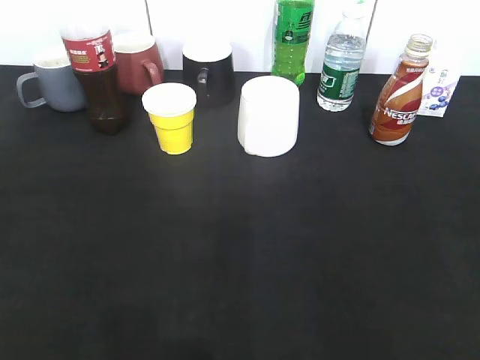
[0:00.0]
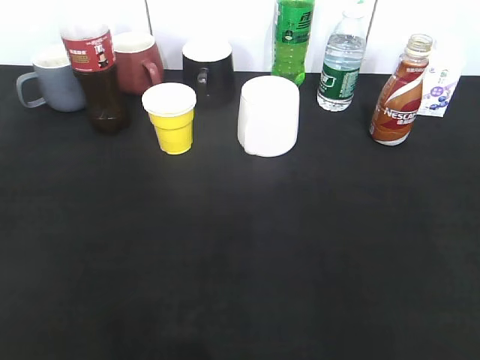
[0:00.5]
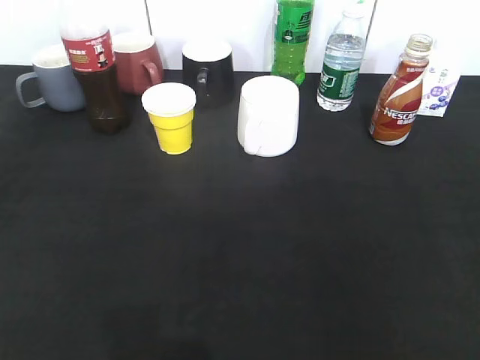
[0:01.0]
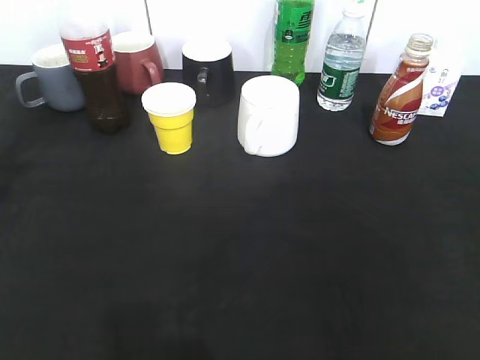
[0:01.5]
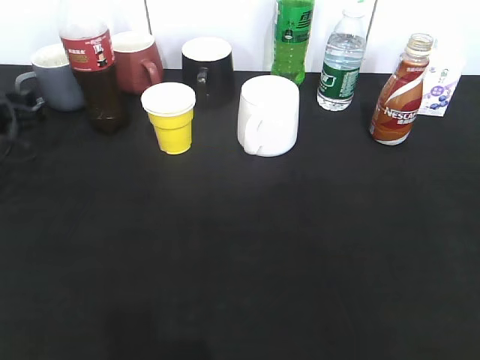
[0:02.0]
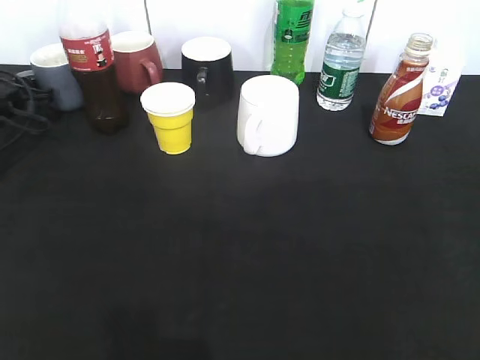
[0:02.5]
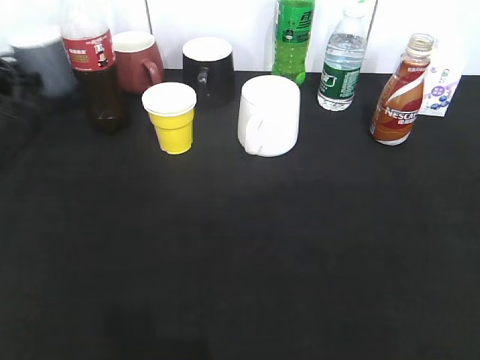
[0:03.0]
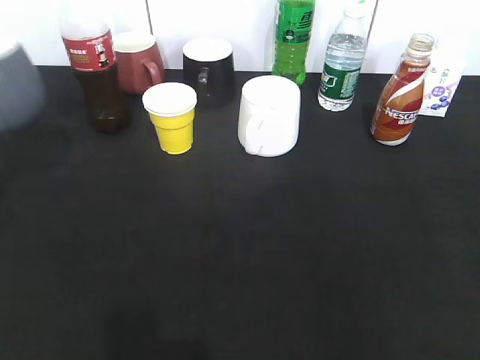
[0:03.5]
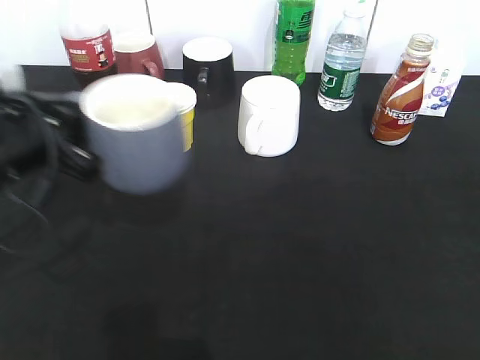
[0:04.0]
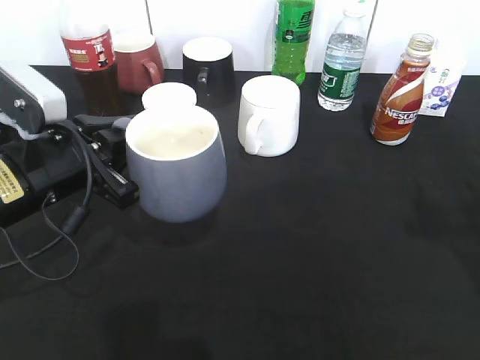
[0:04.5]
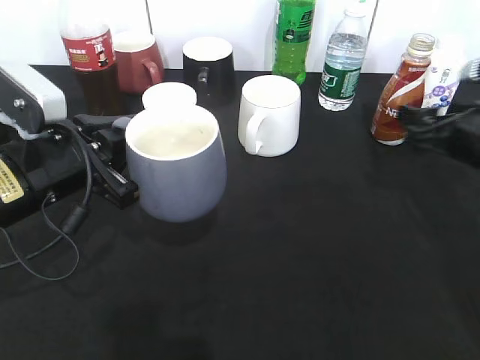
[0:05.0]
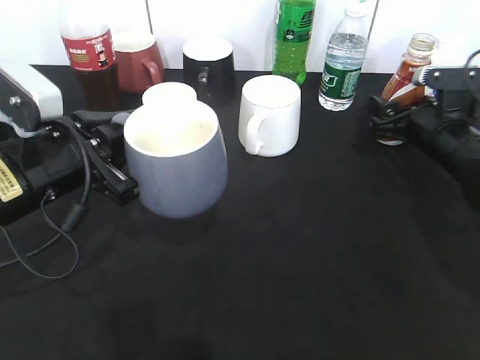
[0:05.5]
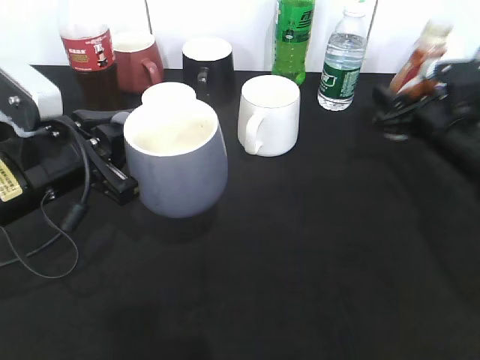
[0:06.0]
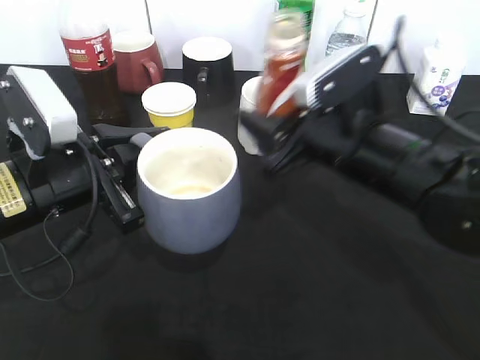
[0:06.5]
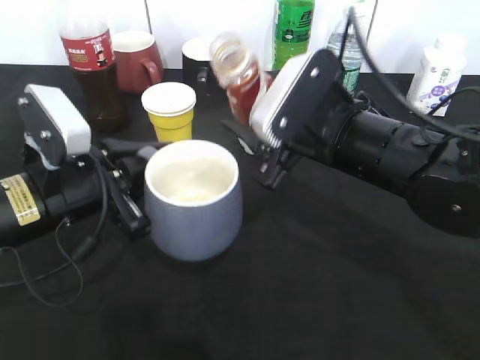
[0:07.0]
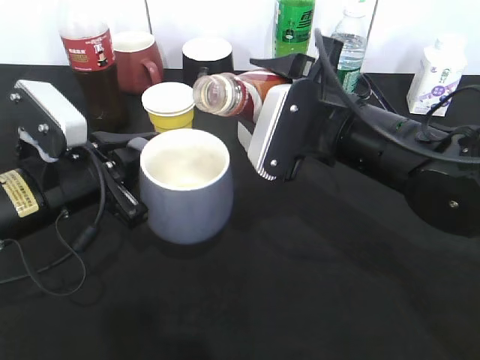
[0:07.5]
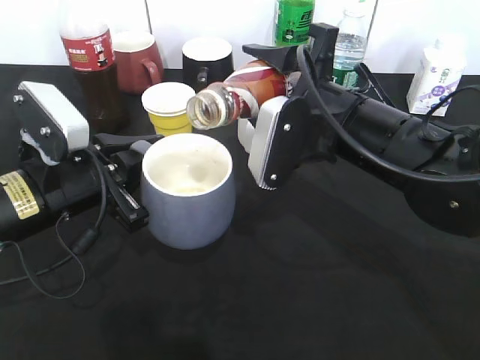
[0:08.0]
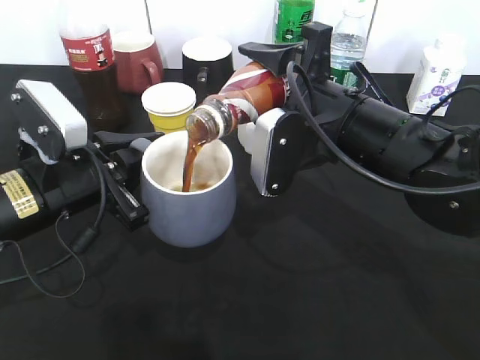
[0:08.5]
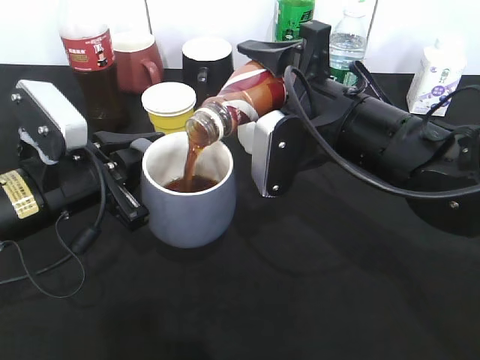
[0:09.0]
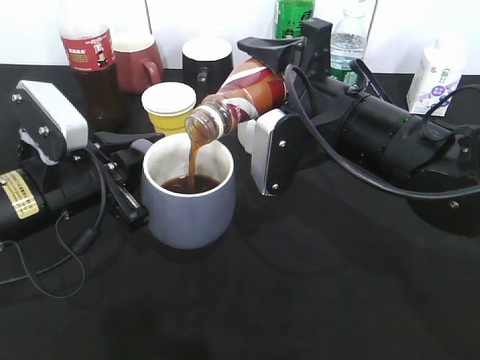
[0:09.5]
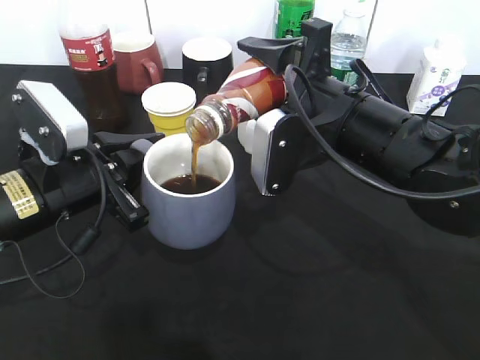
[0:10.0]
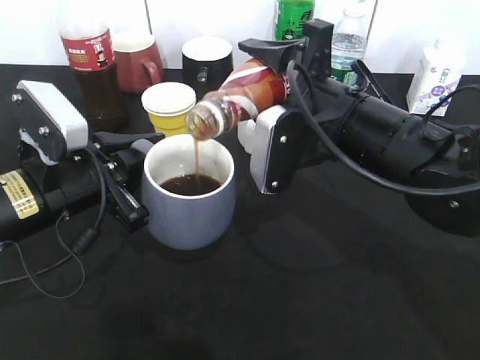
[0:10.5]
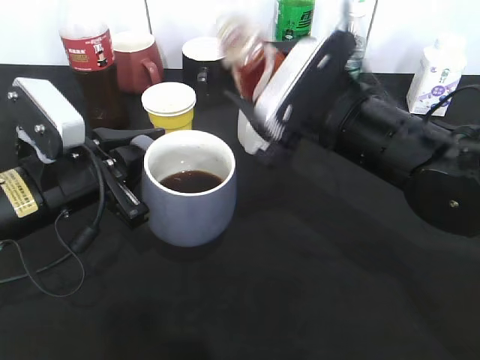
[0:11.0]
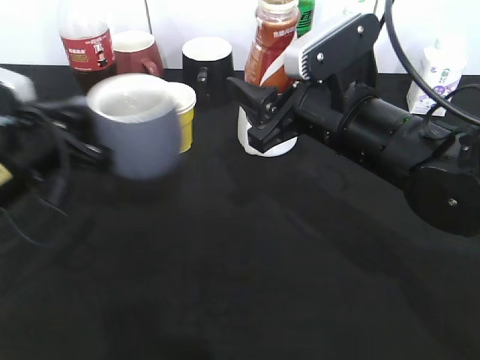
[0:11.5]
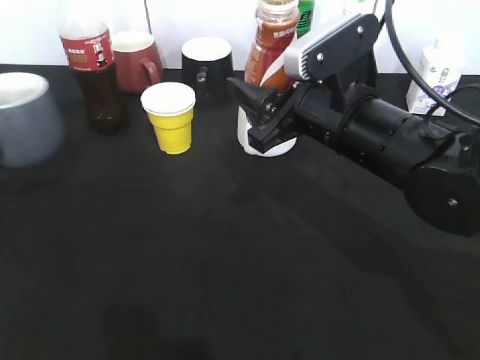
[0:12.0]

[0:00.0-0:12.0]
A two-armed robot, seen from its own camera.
Step, 3.0 to 4.5 s: Lift the grey cup with left gripper.
Step, 5.0 to 5.5 s: Grasp the bottle with coffee with right gripper.
Step, 6.0 to 10.5 s: Pour the coffee from bottle to cup with right gripper.
0.0 to 2.0 s: The left gripper moves forward, roughly 35 cm.
2.0 to 4.0 s: The left gripper goes about 20 cm backward, to the right and upward, and closes up.
4.0 to 6.0 s: The right gripper heads forward and downward, covering approximately 40 cm, and closes.
6.0 to 8.0 s: The right gripper is displaced to the left, backward and upward by roughly 20 cm.
8.0 to 10.0 s: The grippers move only a little.
10.0 to 12.0 s: The left gripper heads to the left, covering some 15 cm.

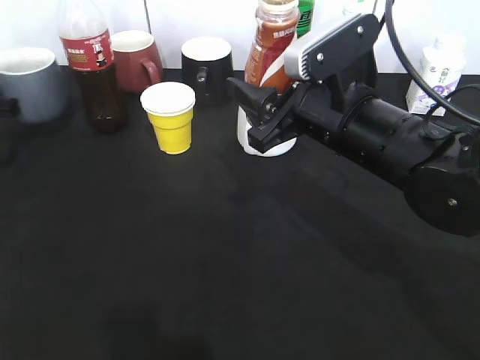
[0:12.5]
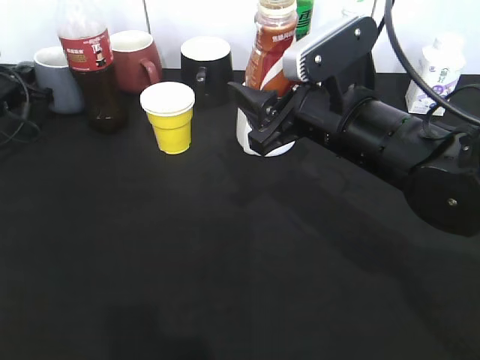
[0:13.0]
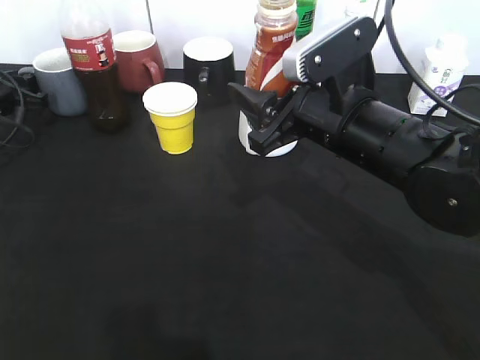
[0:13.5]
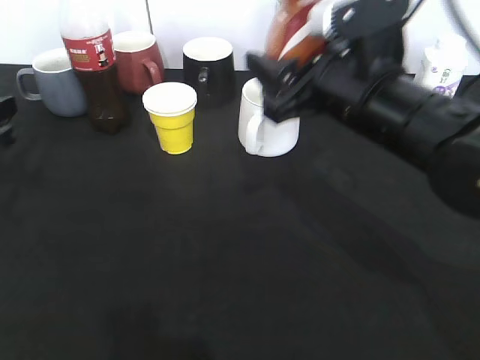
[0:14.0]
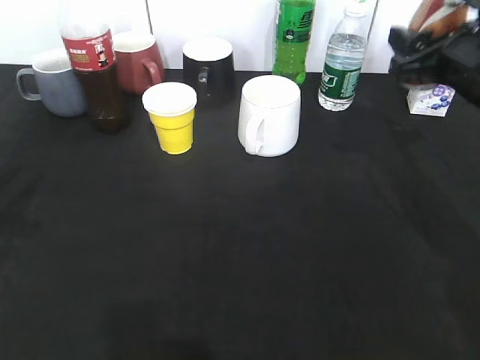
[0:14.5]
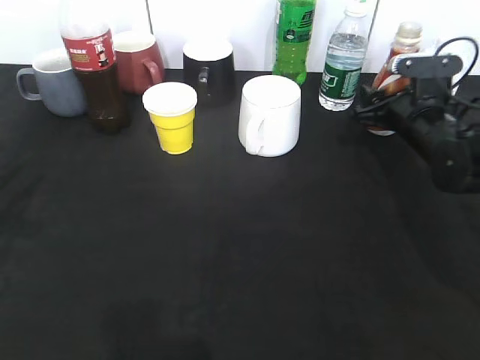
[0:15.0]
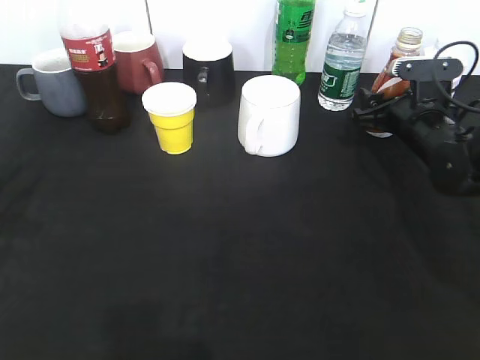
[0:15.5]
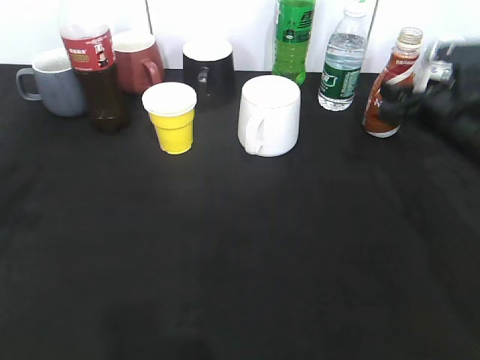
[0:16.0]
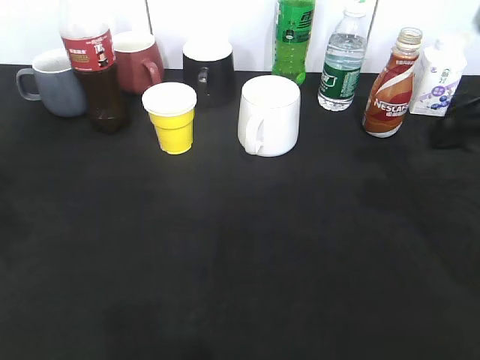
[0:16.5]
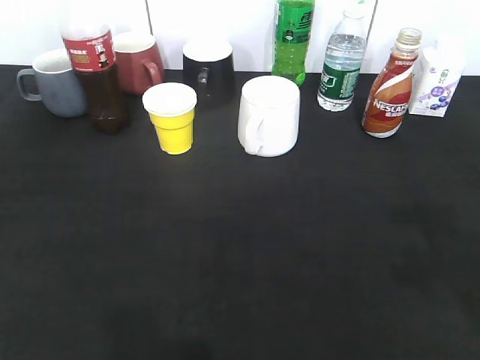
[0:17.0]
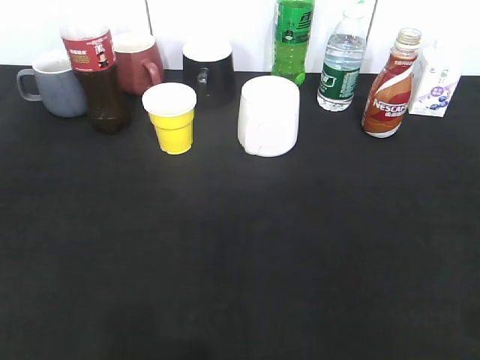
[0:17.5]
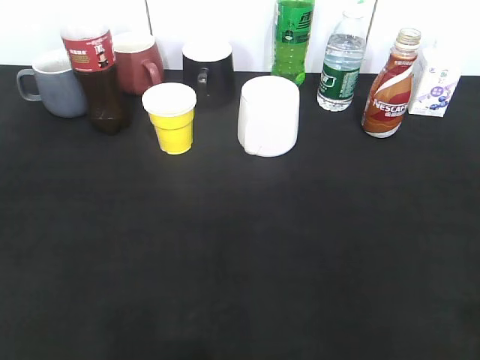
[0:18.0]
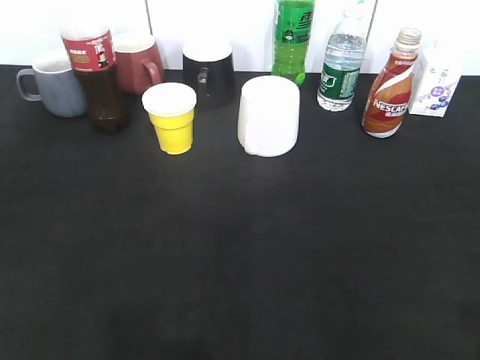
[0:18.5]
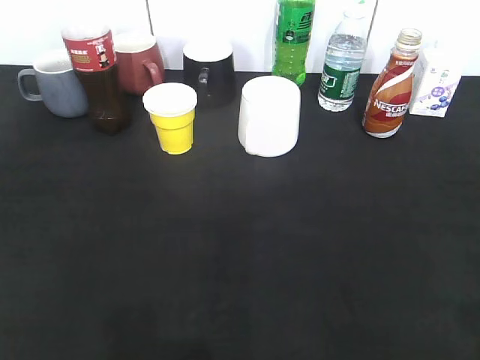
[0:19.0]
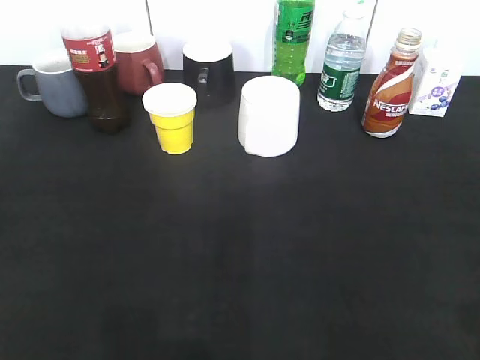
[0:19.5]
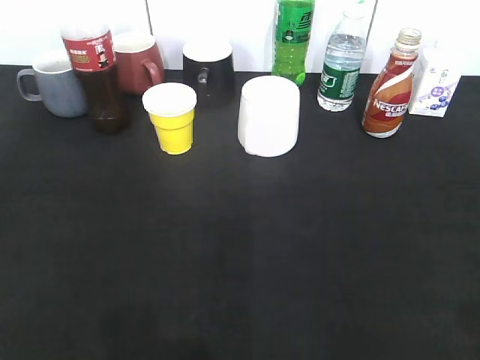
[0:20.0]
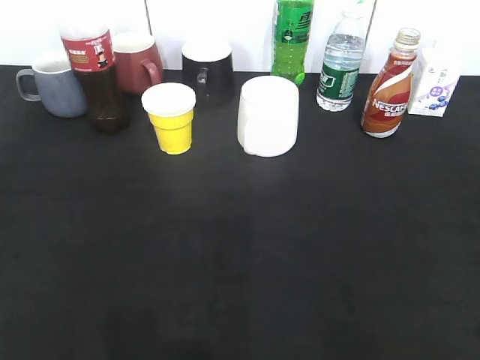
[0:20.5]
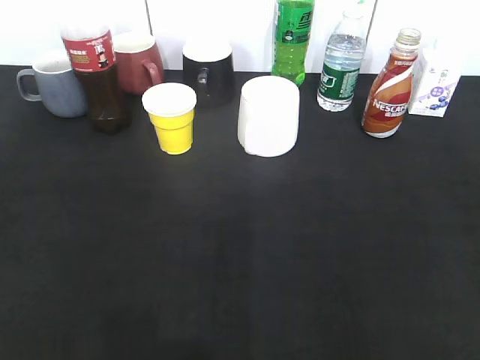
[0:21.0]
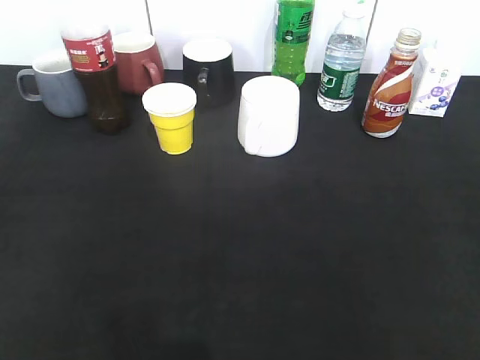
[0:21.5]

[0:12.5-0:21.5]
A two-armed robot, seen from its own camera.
Step, 12.5 to 14.0 s: Place the grey cup on the table with left gripper.
Step, 14.5 to 16.0 s: Place the coffee bottle on the table with right gripper.
12.5 to 14.5 s: The left gripper heads backward and upward, covering approximately 25 cm, and opens up. The right gripper travels to the right by about 15 cm.
14.5 to 17.0 s: The right gripper is displaced backward and upward by about 25 cm, and opens up. Meanwhile the left gripper is displaced upward and backward by approximately 15 cm.

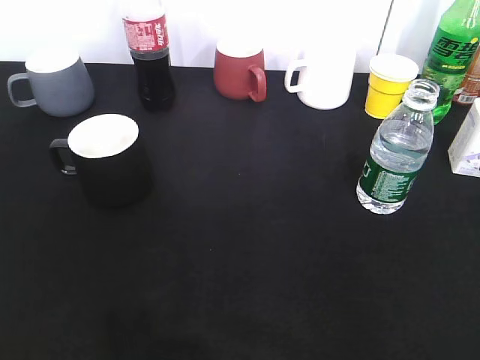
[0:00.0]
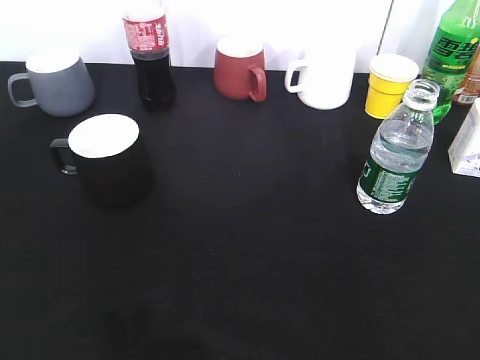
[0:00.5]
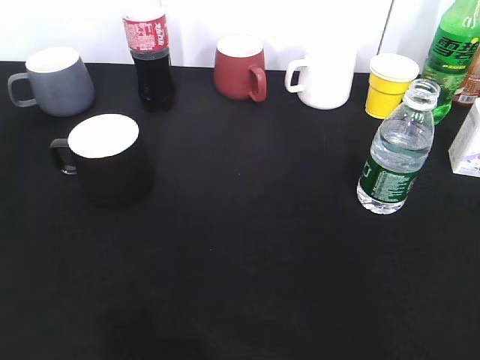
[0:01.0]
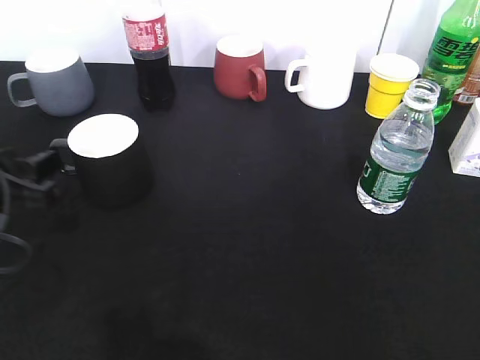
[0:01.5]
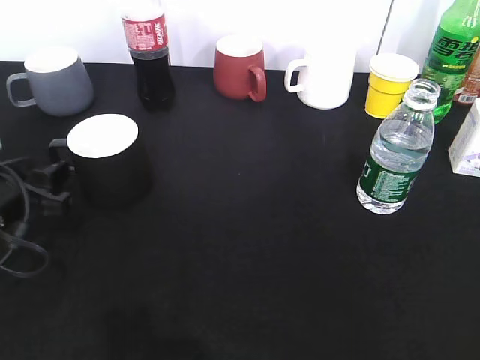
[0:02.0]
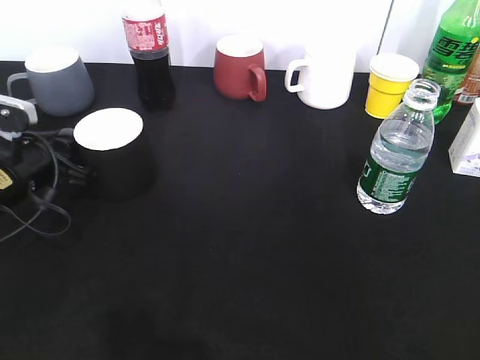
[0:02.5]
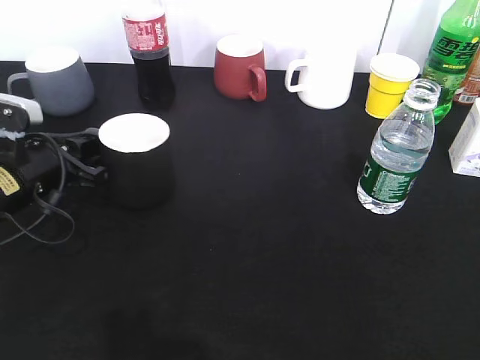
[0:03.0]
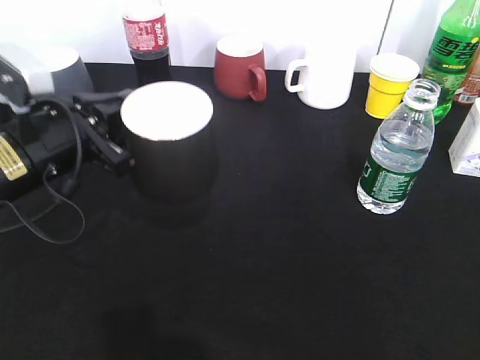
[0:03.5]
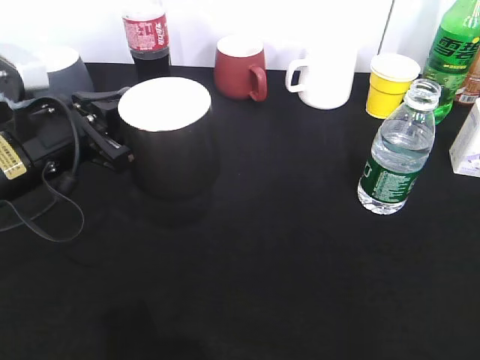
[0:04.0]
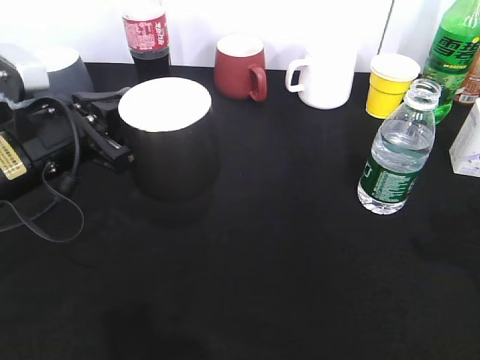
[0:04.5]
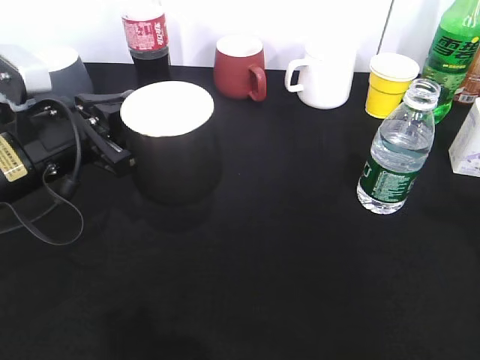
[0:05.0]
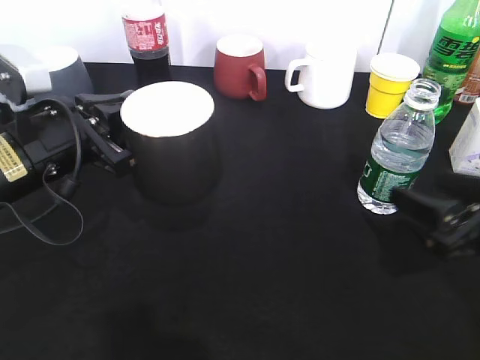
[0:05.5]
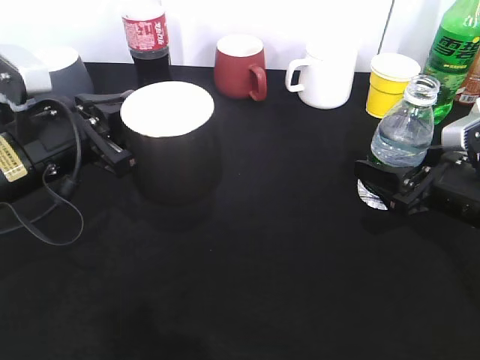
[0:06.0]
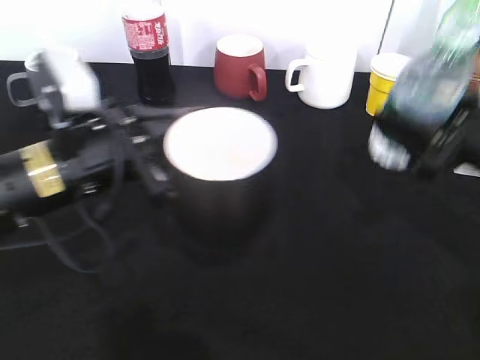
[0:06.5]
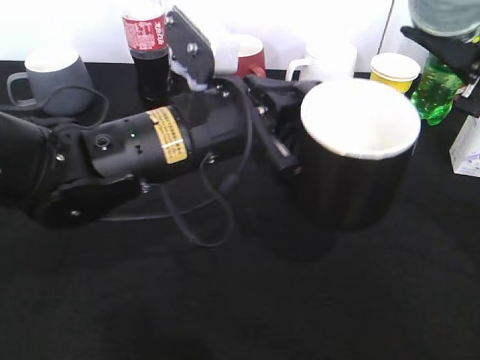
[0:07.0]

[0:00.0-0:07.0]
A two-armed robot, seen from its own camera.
Step, 0.5 to 2.5 s: Grasp the black cup with left gripper.
Step, 3.0 to 3.5 s: Lift the black cup with left gripper.
Step, 4.0 to 6.0 s: Grasp the bottle with water with right gripper.
0.0 to 2.0 s: The left gripper goes some 30 cm forward and downward, and opens its fingers.
2.0 to 3.5 s: The left gripper is displaced to the right and upward by some 10 cm, and closes.
3.5 to 5.0 s: The right gripper is displaced forward by some 20 cm.
5.0 to 7.0 s: The right gripper travels forward and to the left by some 10 cm, reaches about 15 cm downward, then returns, and opens; the left gripper travels to the right by some 15 cm.
